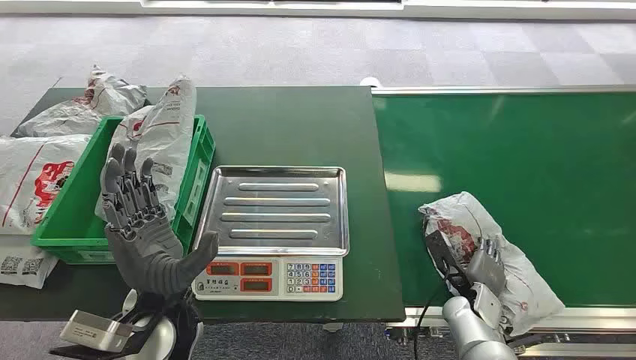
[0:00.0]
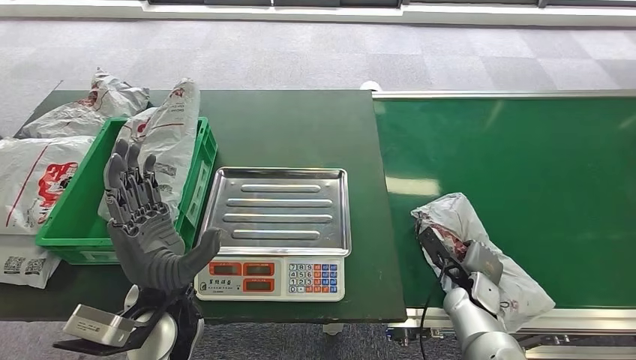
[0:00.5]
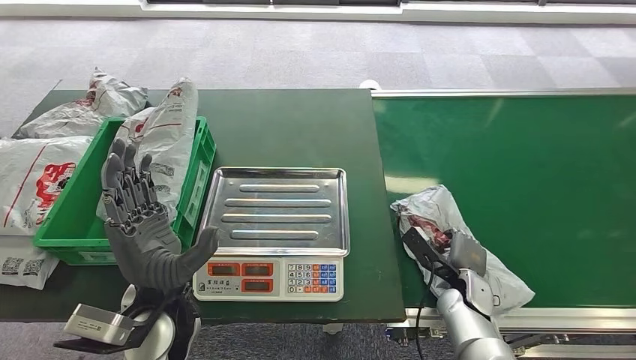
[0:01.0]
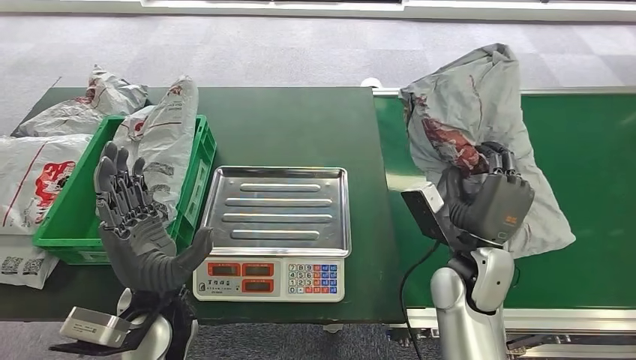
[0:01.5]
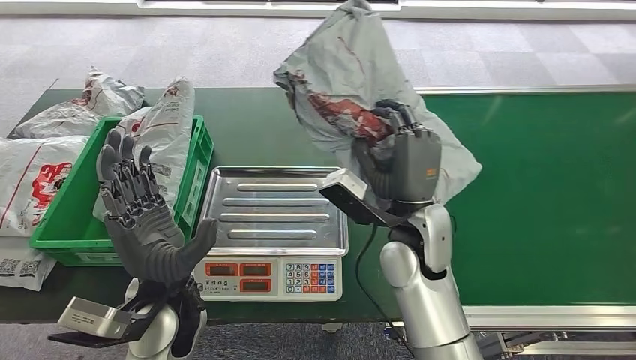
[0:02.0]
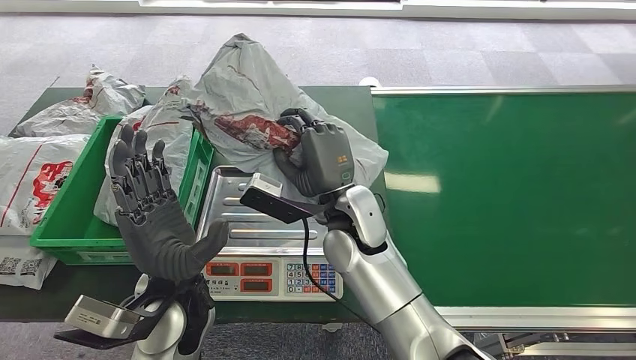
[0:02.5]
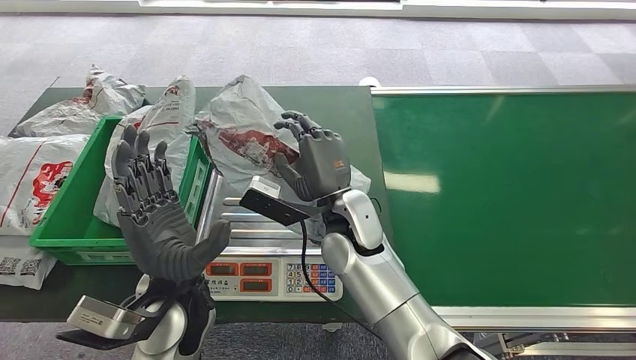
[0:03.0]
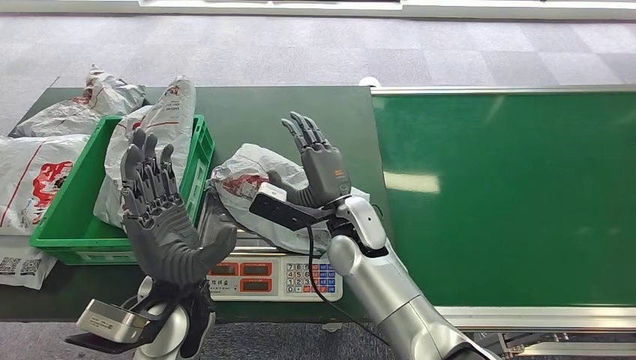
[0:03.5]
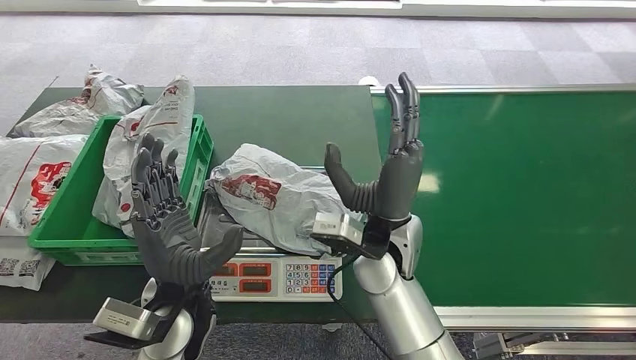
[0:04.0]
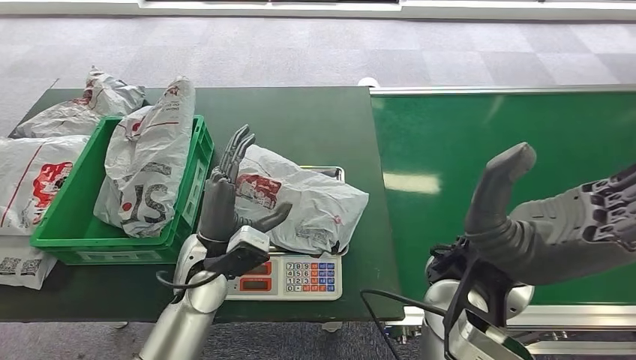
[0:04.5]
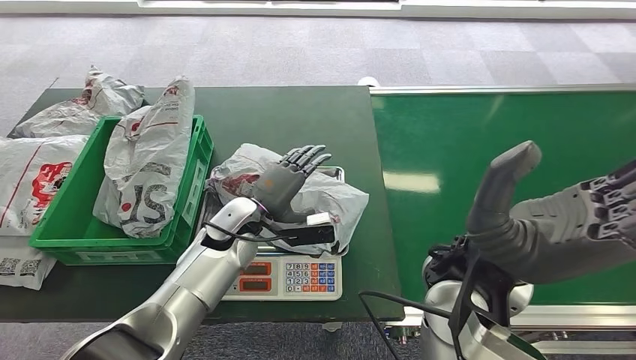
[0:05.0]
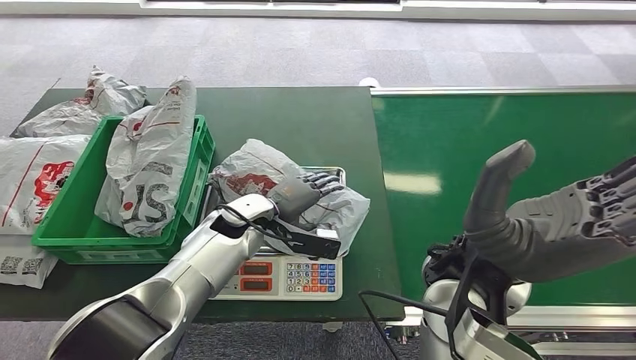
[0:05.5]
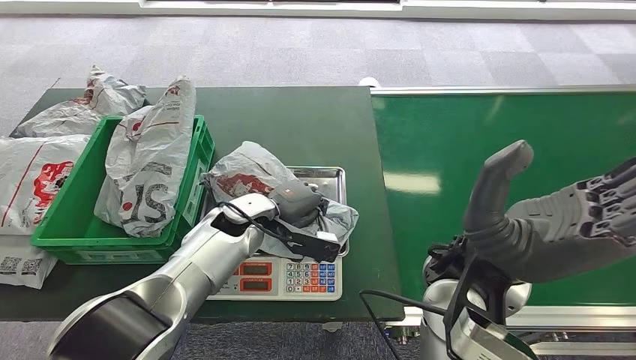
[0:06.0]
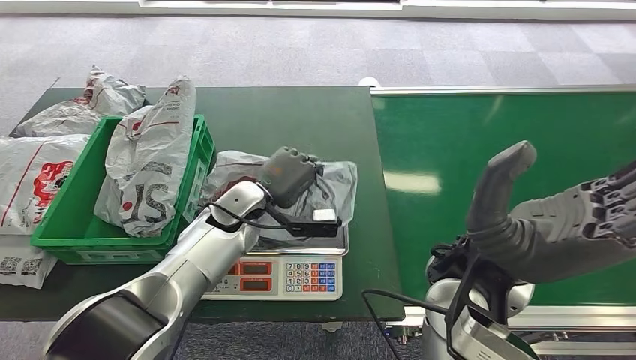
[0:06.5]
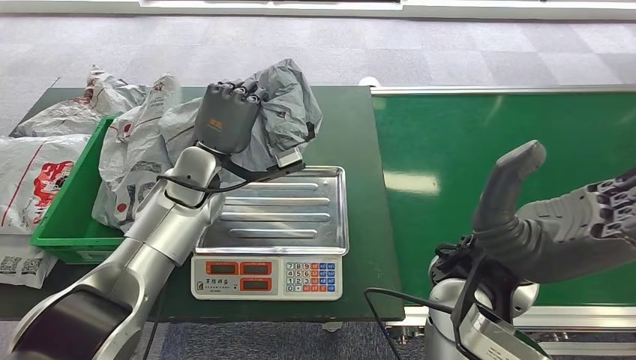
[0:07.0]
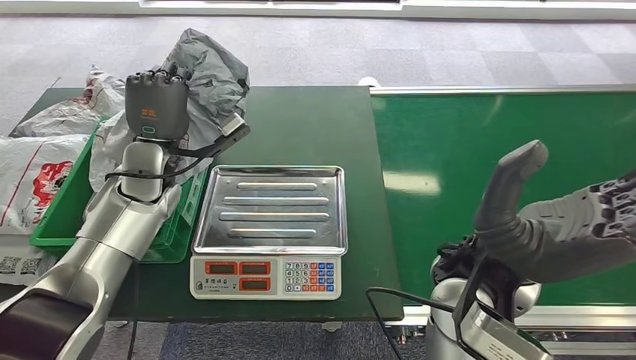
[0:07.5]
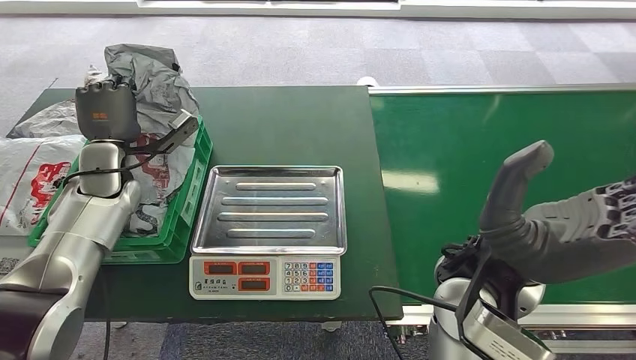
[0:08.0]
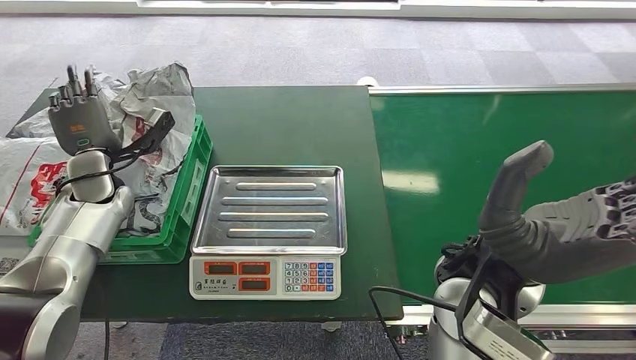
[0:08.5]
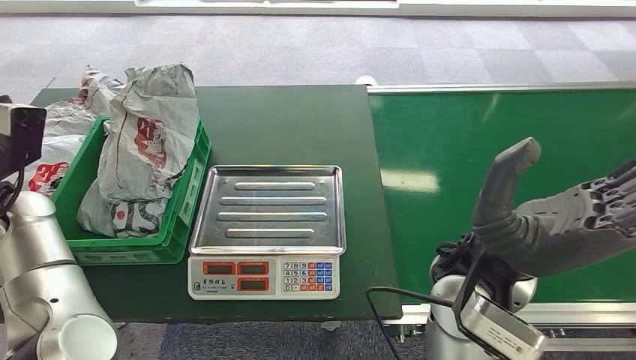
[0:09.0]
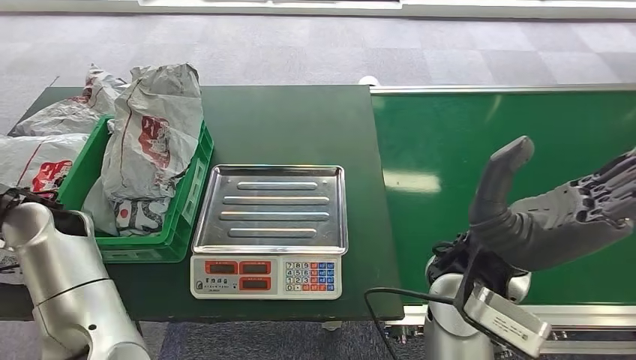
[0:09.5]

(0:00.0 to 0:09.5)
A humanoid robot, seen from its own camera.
Step, 0:00.0 - 0:01.5: Pick up the package from the conveyor belt.
Step, 0:02.0 - 0:04.5: Place the package onto the inbound machine.
Step, 0:05.0 - 0:07.0: Pick up the package from the inbound machine.
Step, 0:07.5 - 0:09.5: Place the package into the parcel locker.

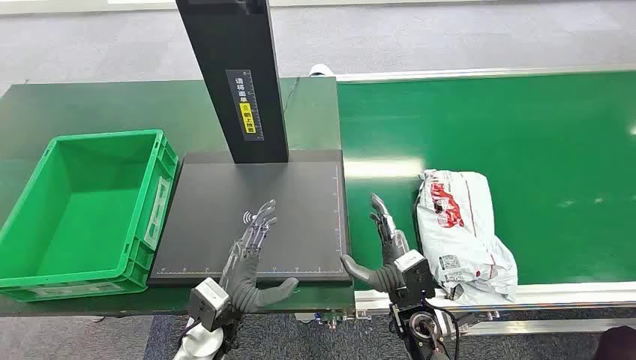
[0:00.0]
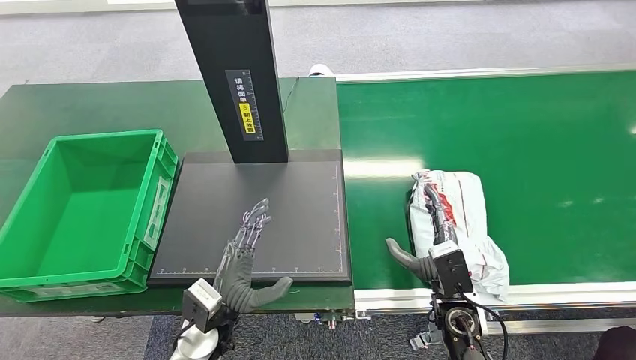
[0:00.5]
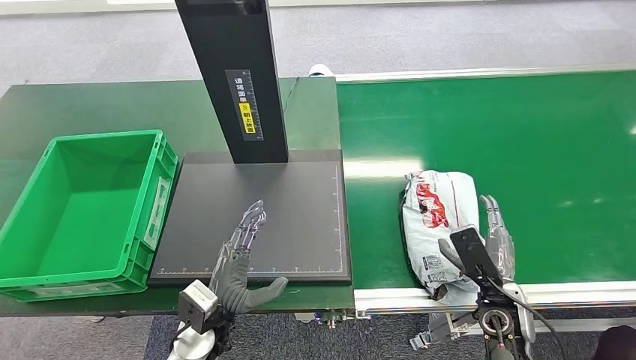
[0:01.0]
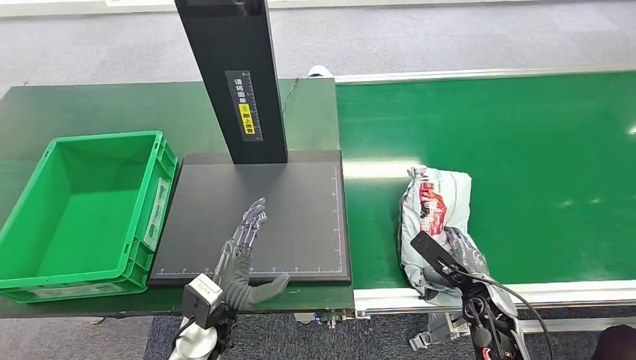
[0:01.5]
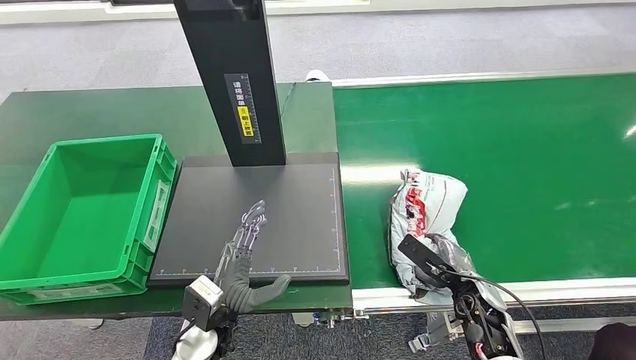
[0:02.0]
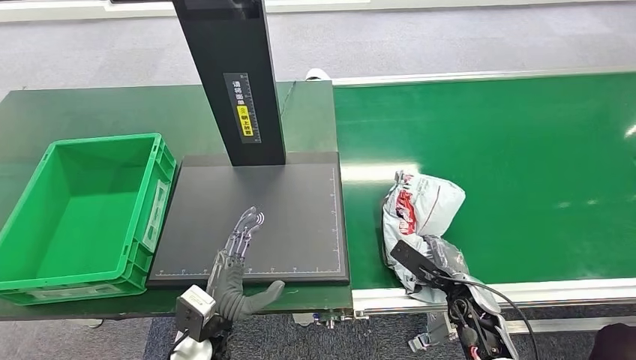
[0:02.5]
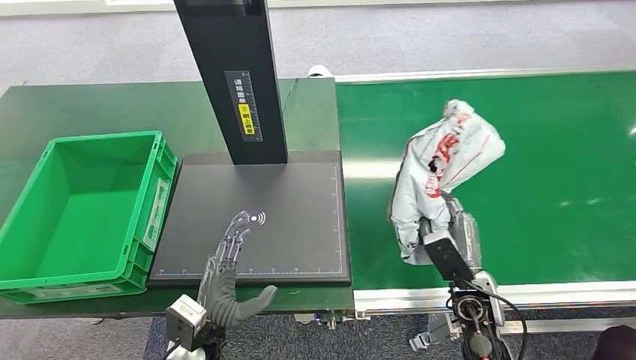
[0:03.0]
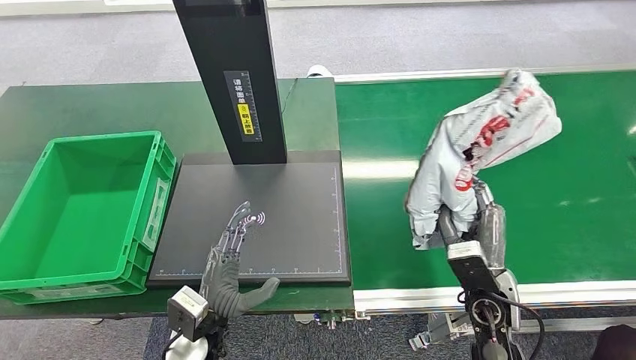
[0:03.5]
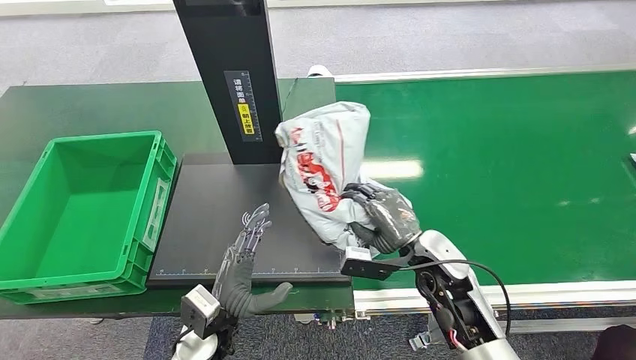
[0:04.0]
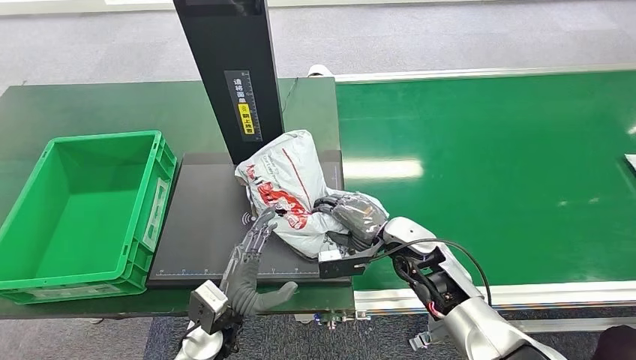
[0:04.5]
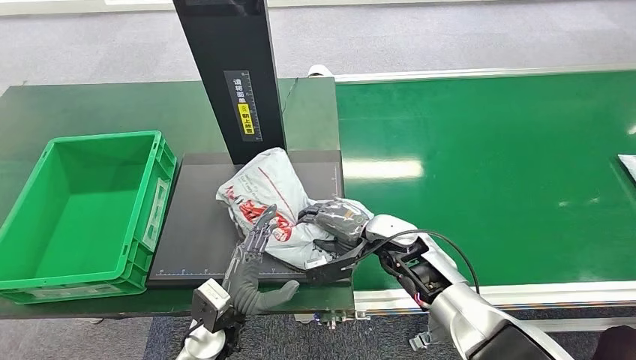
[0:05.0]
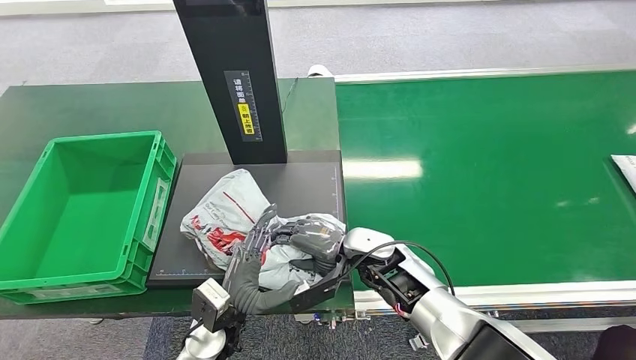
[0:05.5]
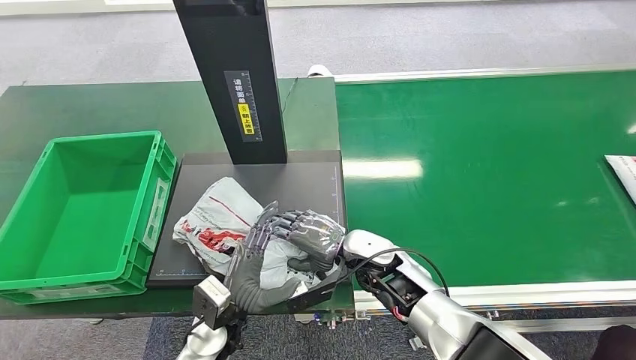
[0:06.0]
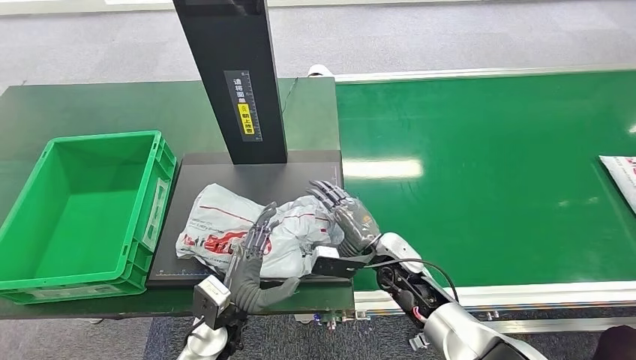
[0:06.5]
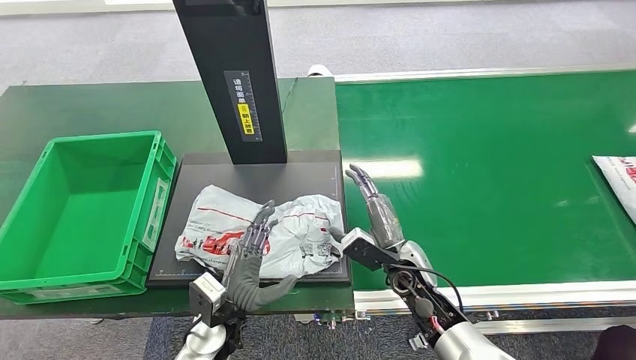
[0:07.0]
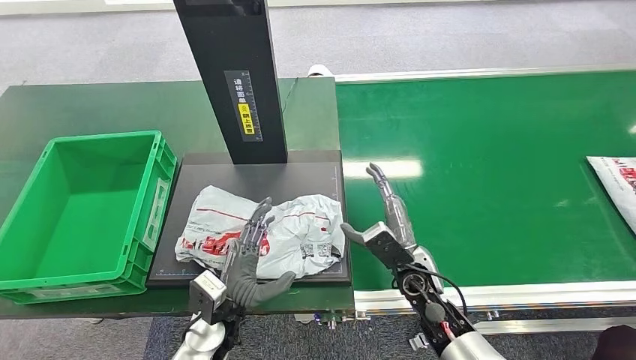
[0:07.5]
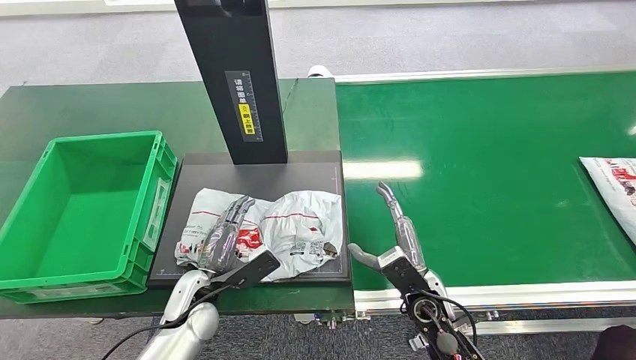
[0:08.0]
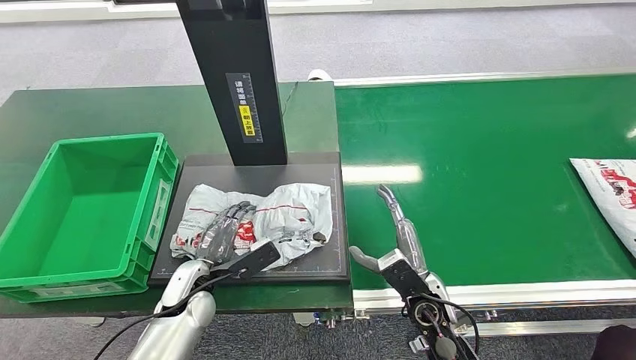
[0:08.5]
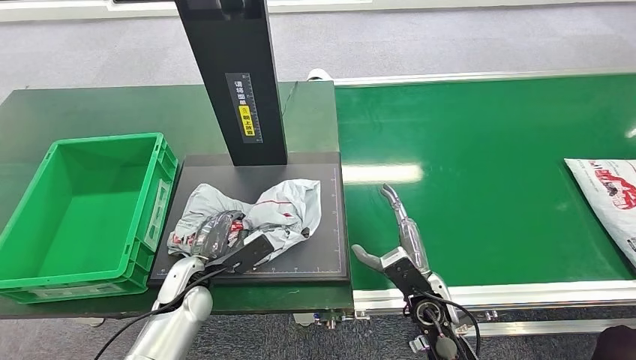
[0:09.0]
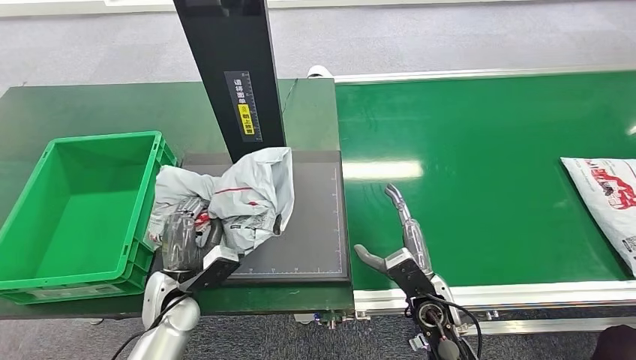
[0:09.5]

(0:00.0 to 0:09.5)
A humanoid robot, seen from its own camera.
Step, 0:00.0 - 0:03.0: Pick up the package from the conveyor belt.
Step, 0:03.5 - 0:07.5: Place the package onto the inbound machine.
0:04.0 - 0:05.5: The right hand travels to the left by about 5 cm.
0:05.5 - 0:07.5: The right hand shifts roughly 5 cm to the right.
0:07.5 - 0:09.5: The left hand travels to the left by about 10 cm; the right hand goes some 5 cm backward.

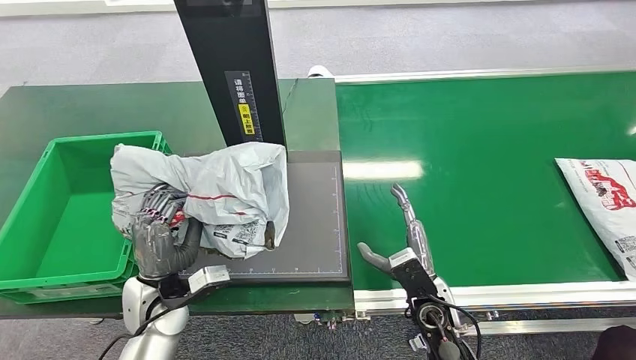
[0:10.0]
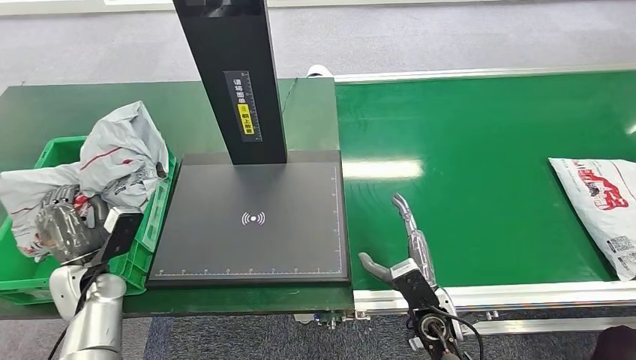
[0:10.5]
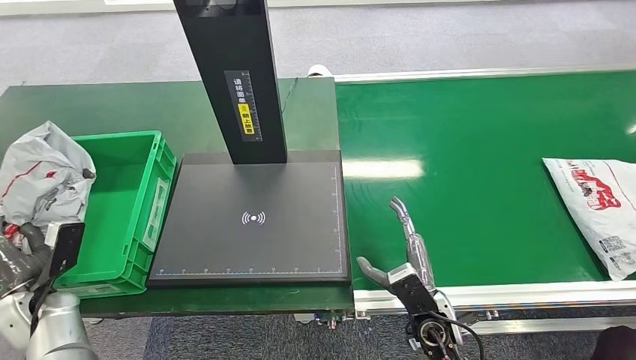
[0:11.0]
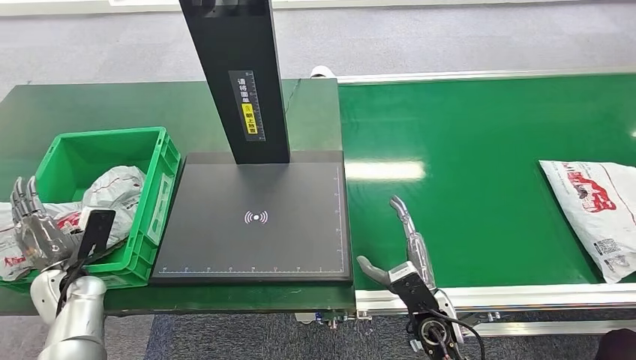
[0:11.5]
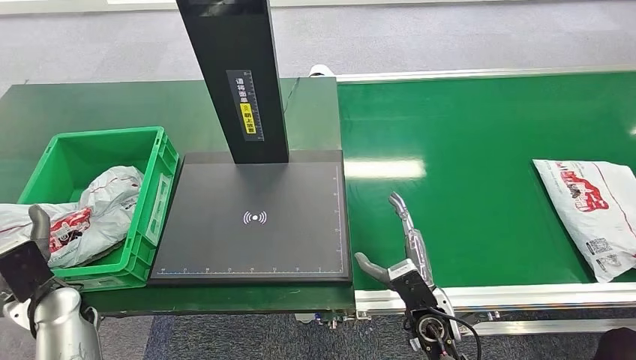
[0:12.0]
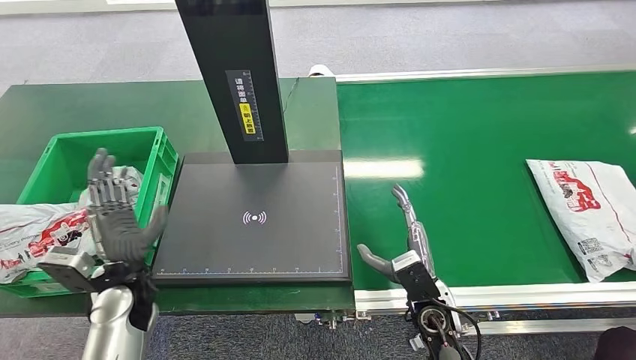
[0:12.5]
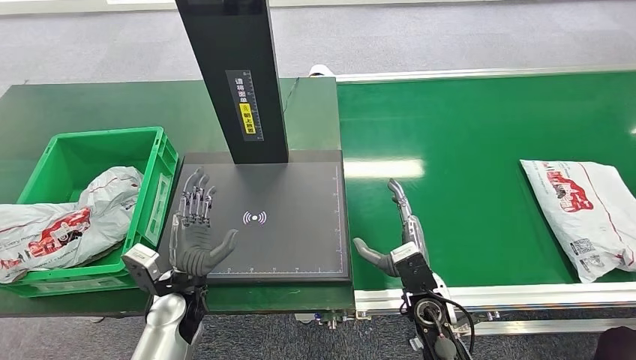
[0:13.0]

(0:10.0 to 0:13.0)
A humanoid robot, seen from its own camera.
Step, 0:10.0 - 0:13.0: Place the package into the parcel locker.
0:11.5 - 0:13.0: The left hand moves to the right, some 20 cm.
